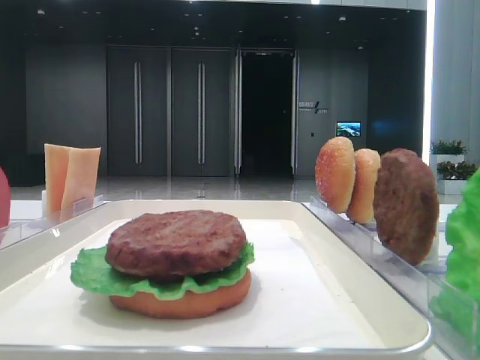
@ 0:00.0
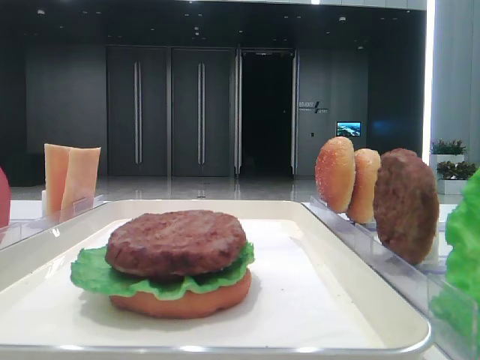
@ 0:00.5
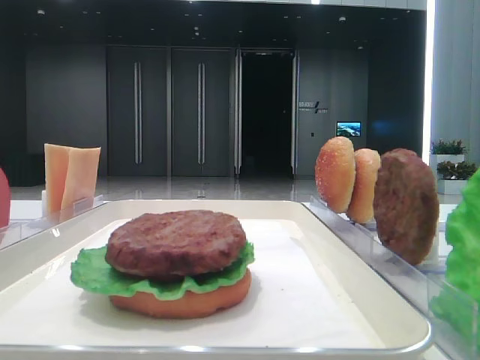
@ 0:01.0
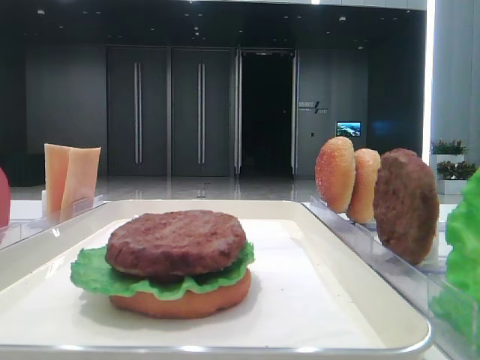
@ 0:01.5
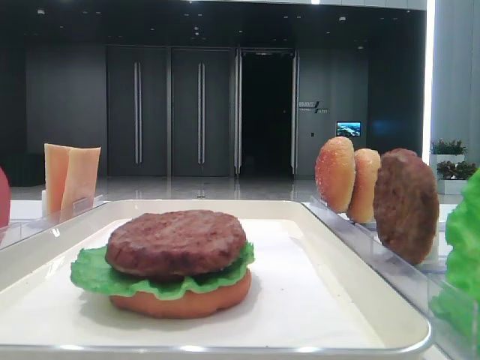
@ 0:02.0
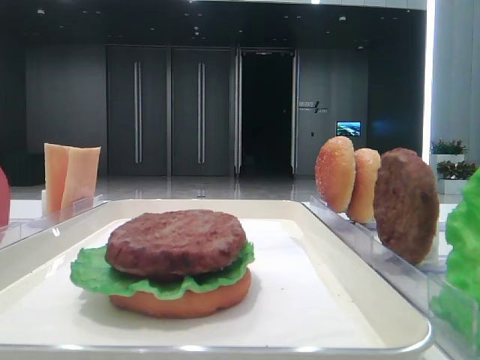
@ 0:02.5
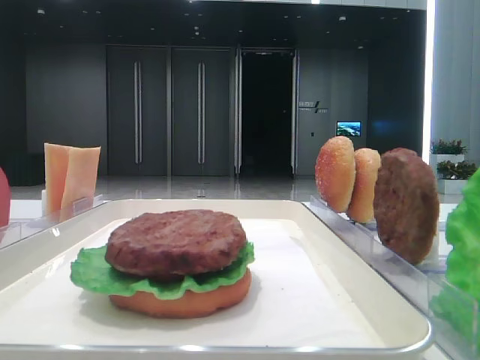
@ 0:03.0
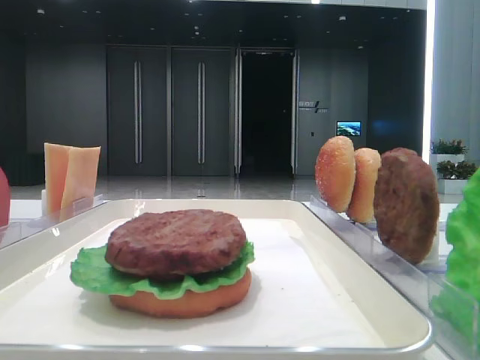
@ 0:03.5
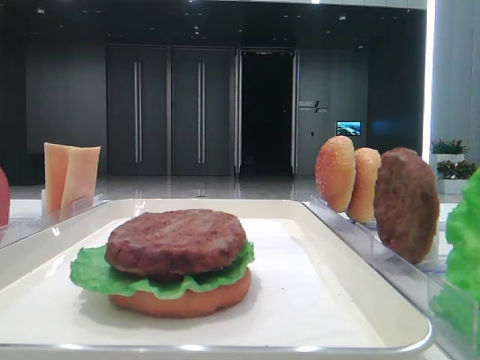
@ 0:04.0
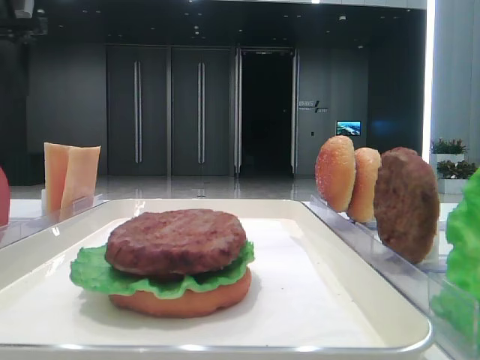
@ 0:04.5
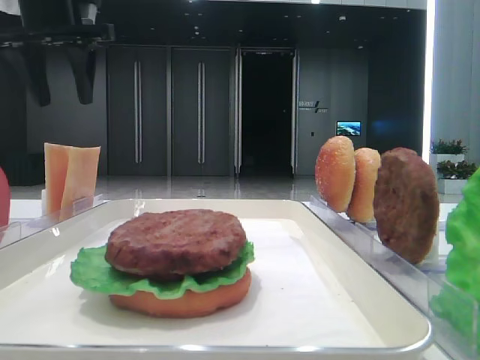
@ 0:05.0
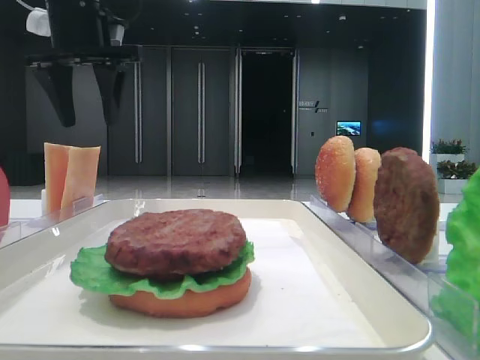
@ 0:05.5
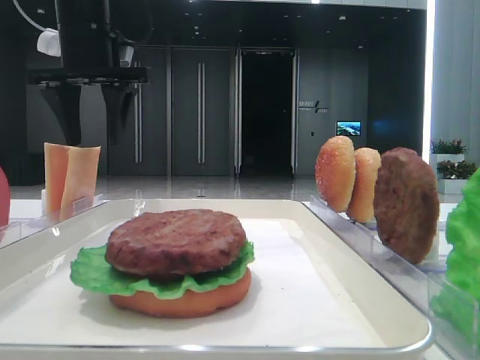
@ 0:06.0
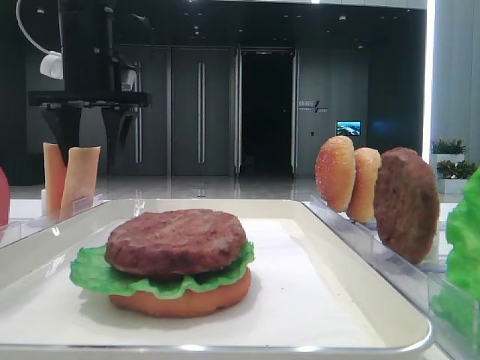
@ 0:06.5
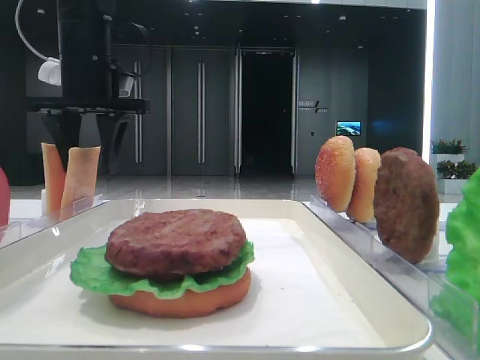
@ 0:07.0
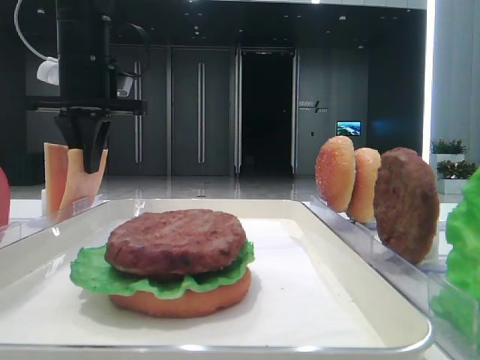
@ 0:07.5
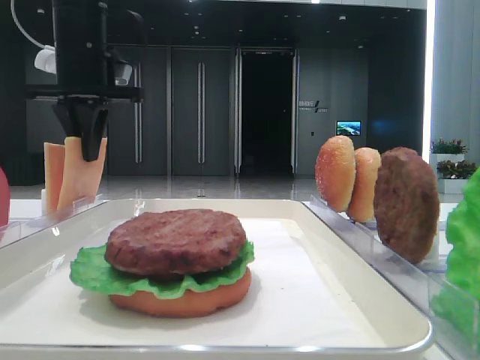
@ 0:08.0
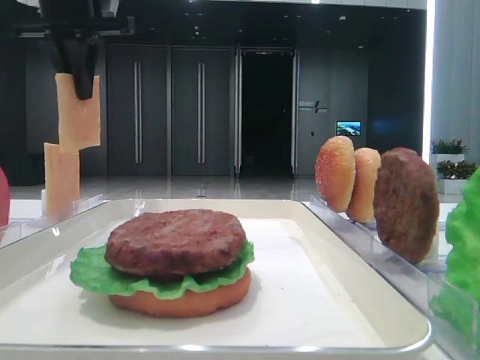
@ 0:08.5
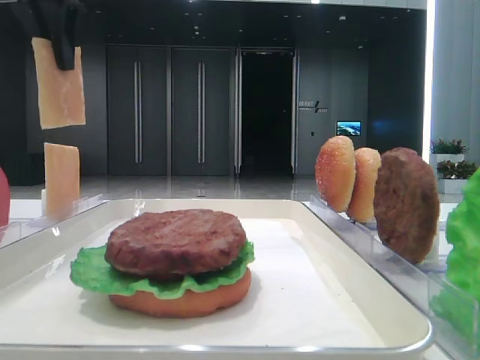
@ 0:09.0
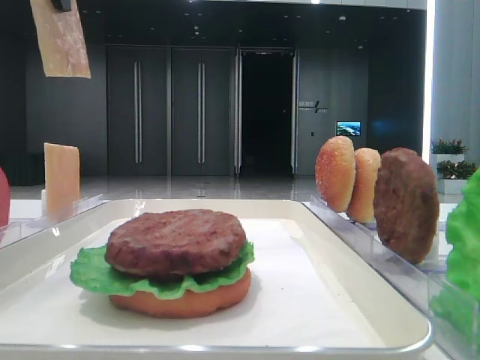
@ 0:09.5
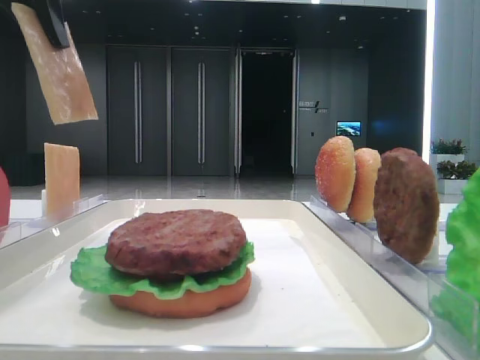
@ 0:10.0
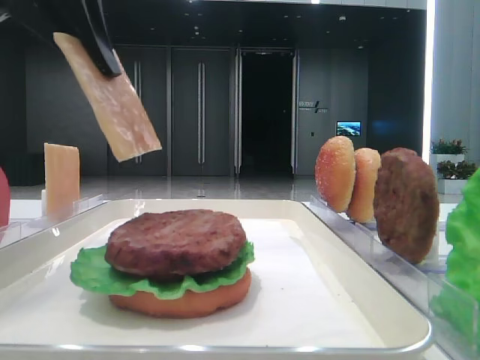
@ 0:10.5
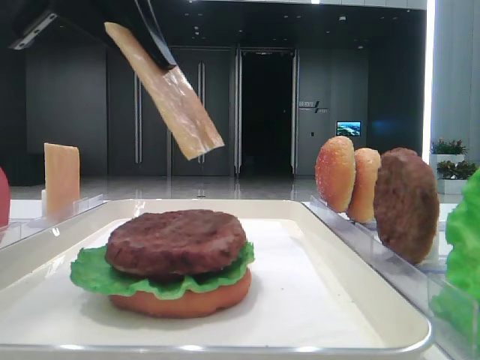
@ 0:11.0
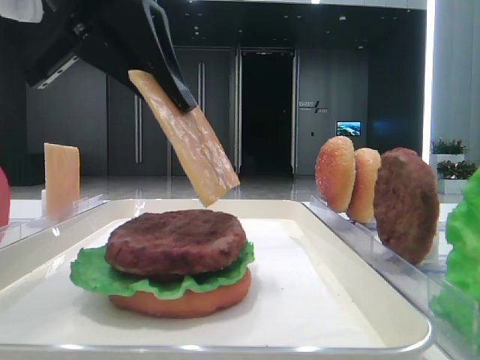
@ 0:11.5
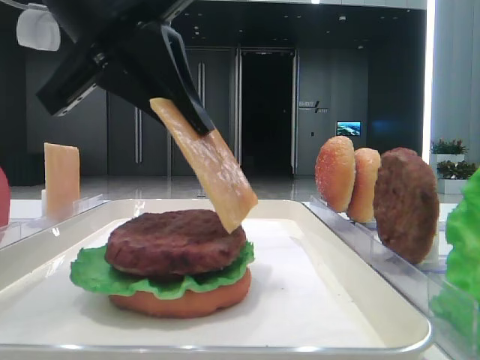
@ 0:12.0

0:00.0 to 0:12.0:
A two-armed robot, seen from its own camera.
Step, 0:00.0 to 0:07.5: Pick up the cheese slice with the left hand.
0:02.0 to 0:04.0: The left gripper travels forward by roughly 35 cm.
0:04.0 to 0:06.0: The left gripper travels to the right and downward by about 20 cm.
0:06.0 to 0:08.0: The left gripper closes its fingers.
0:08.0 to 0:10.0: The left gripper travels backward and upward by roughly 20 cm.
0:10.0 to 0:12.0: The left gripper travels downward and to the right by roughly 15 cm.

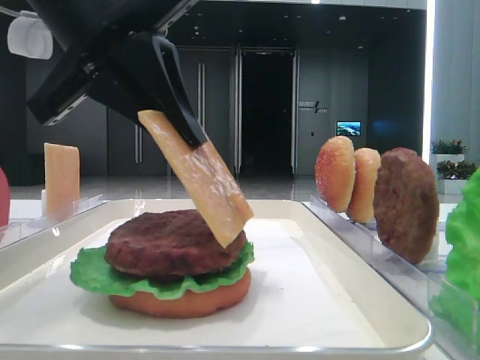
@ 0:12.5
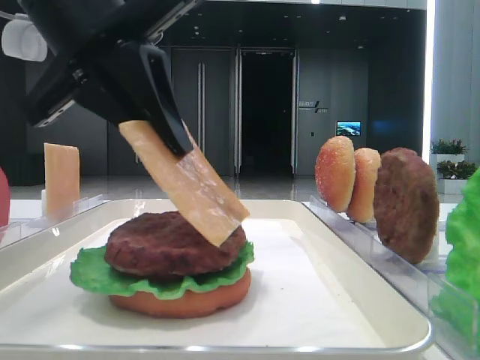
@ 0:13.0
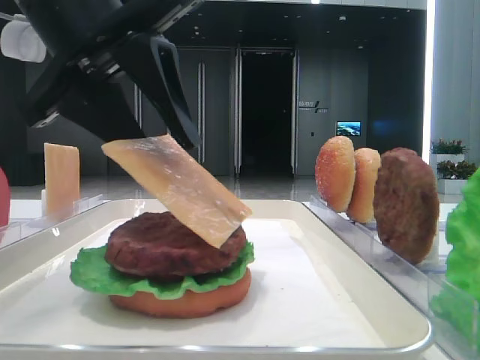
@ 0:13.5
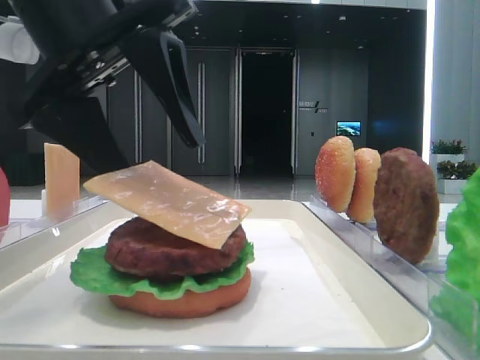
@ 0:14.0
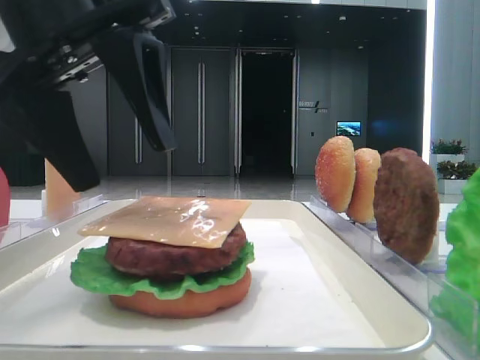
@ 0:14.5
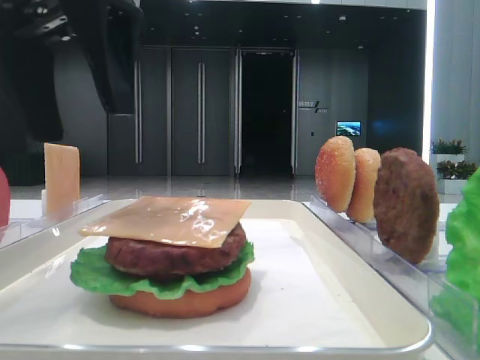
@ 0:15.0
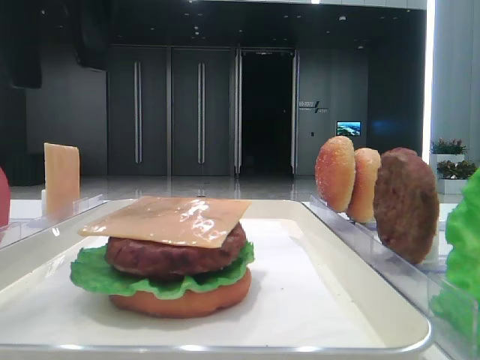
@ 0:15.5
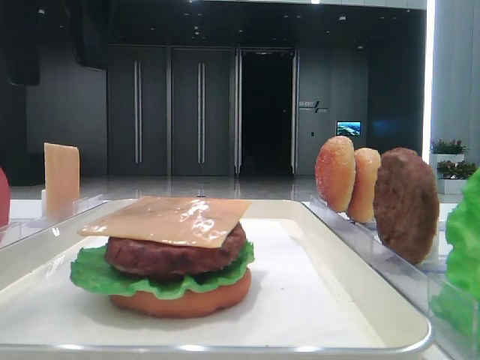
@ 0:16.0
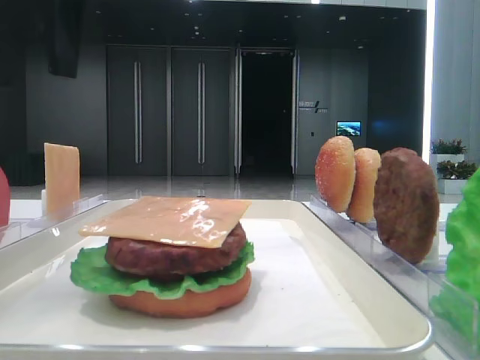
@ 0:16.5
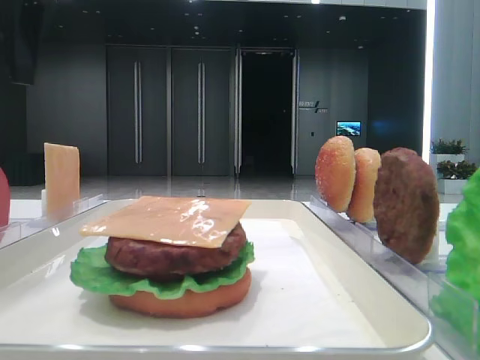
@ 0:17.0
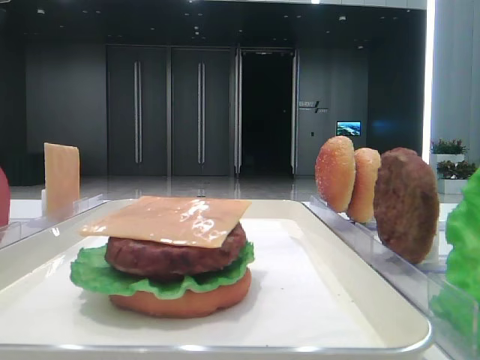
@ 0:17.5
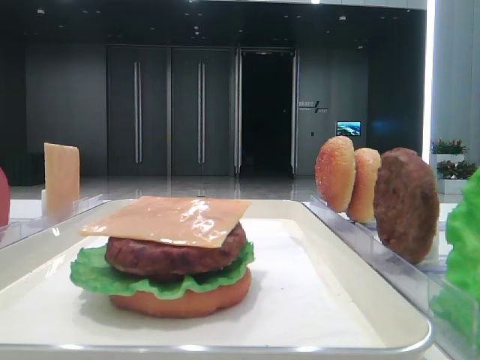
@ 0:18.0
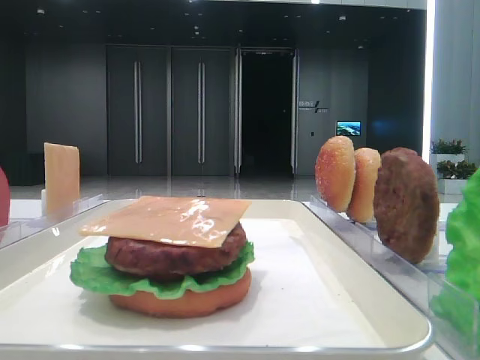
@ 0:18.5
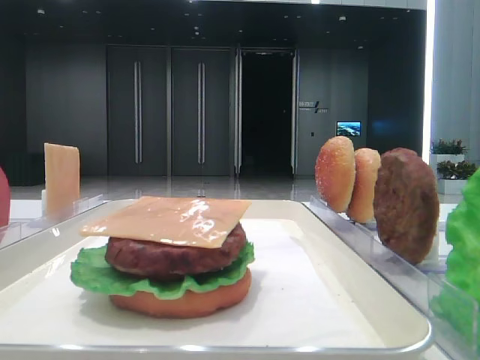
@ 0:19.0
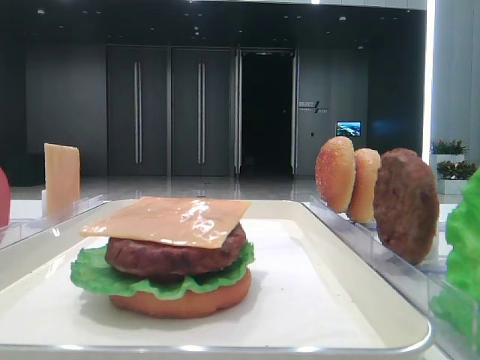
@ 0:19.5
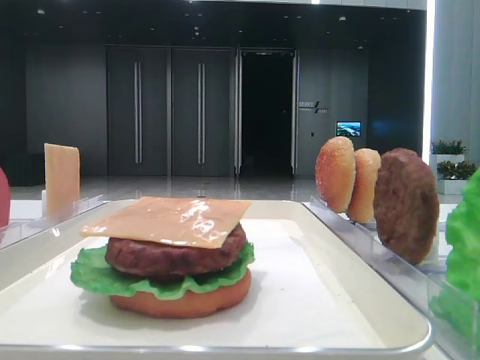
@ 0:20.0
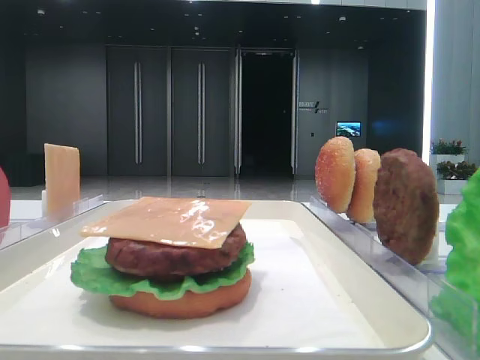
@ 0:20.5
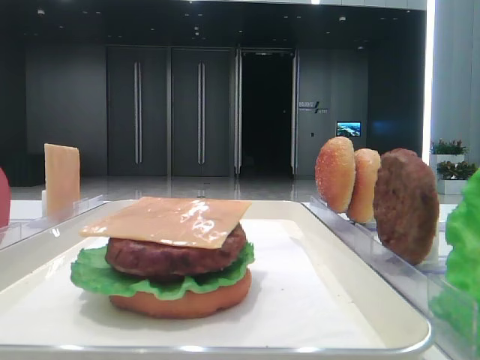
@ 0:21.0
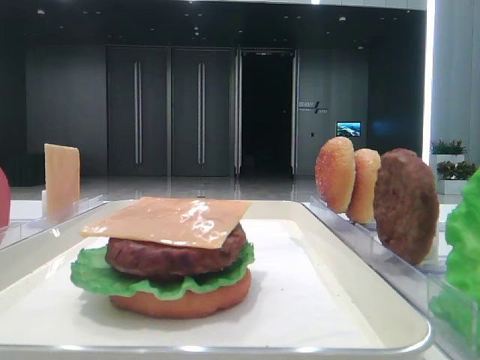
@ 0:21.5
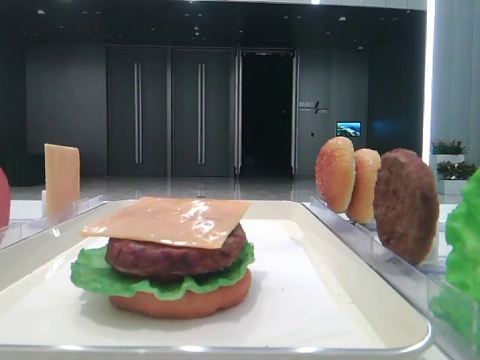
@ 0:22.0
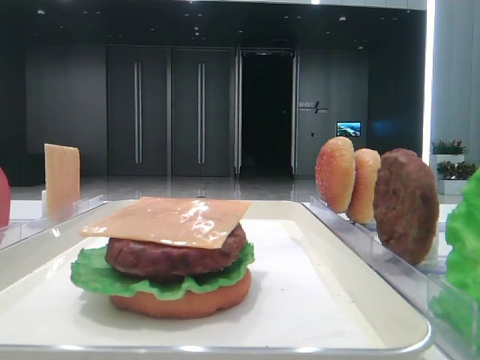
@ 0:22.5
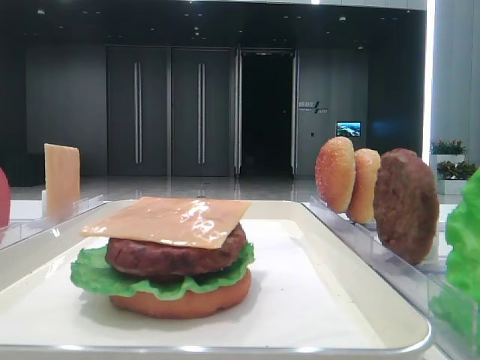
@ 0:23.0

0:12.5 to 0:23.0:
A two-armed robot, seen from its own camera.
0:12.5 to 0:14.5: The left gripper opens.
0:14.5 to 0:16.5: The left gripper shifts roughly 10 cm upward.
0:16.5 to 0:19.0: The left gripper travels to the left and backward by approximately 15 cm.

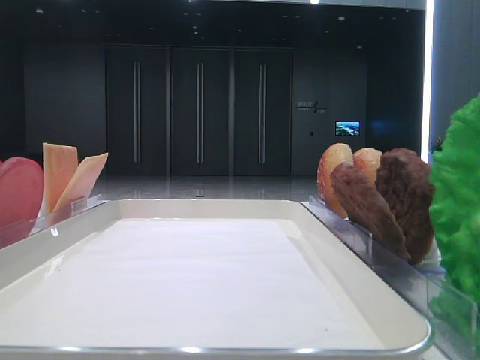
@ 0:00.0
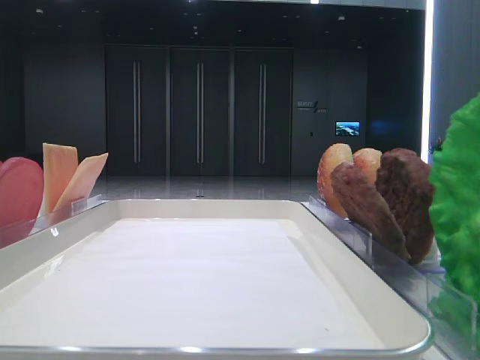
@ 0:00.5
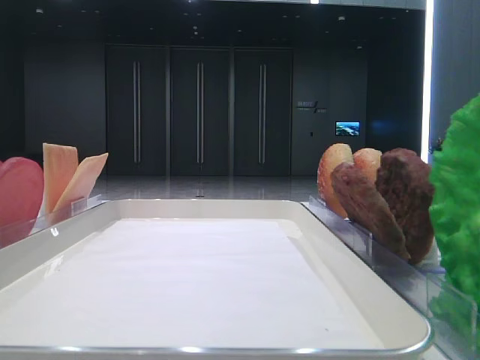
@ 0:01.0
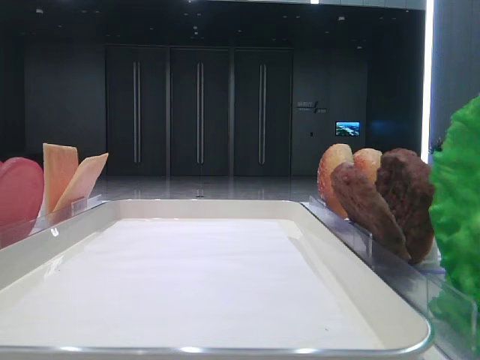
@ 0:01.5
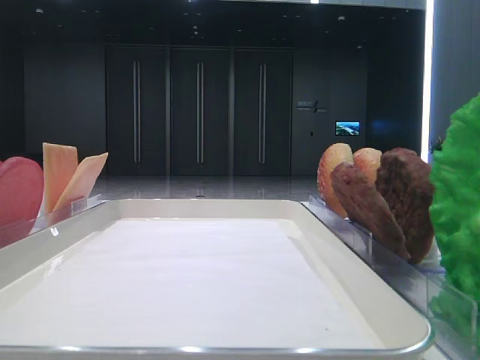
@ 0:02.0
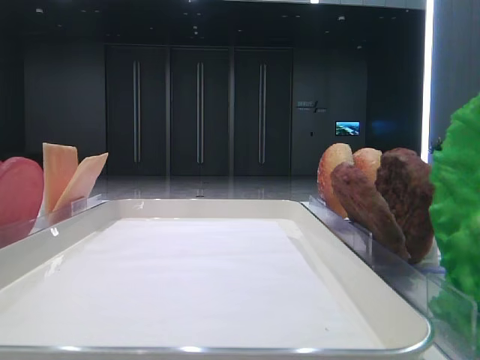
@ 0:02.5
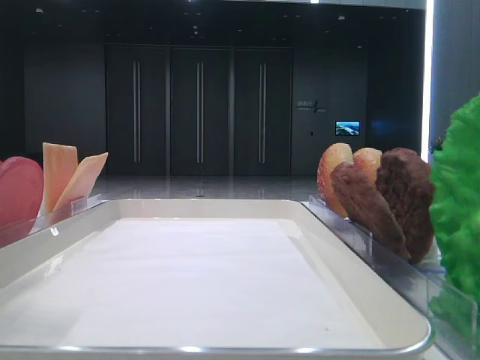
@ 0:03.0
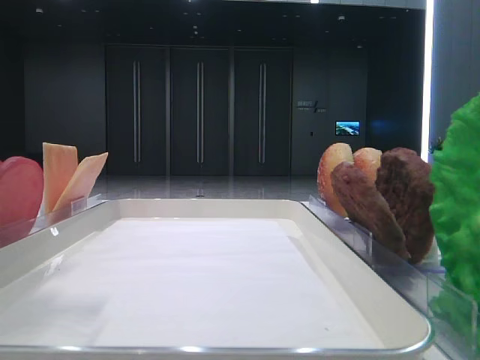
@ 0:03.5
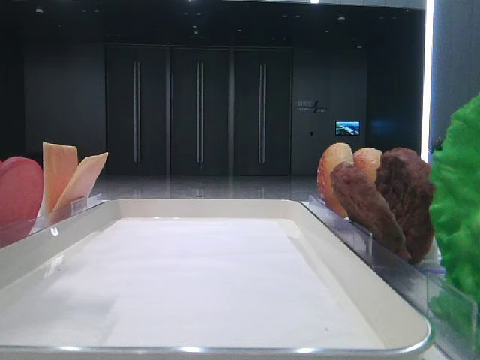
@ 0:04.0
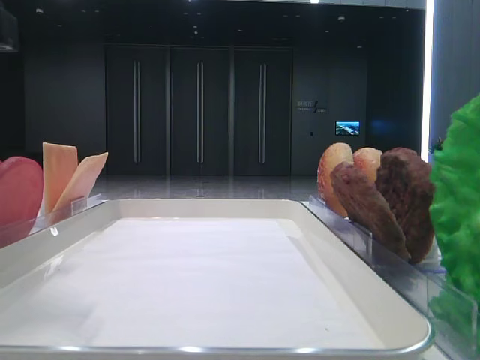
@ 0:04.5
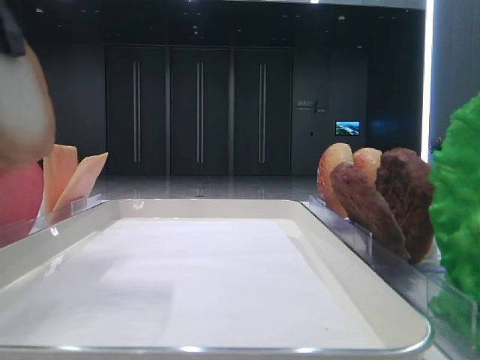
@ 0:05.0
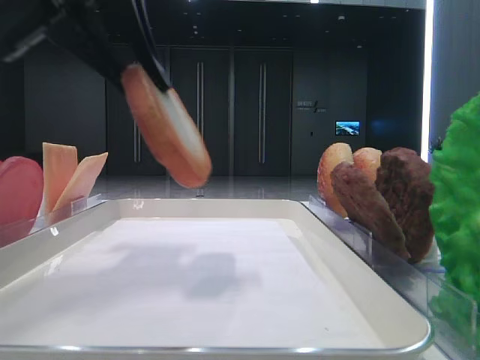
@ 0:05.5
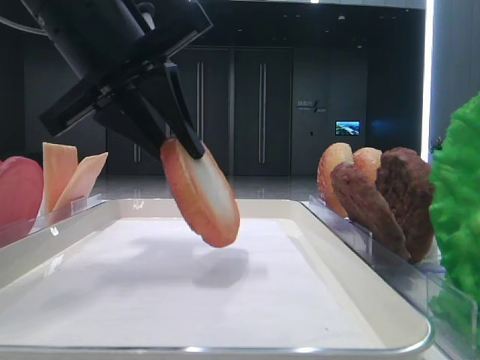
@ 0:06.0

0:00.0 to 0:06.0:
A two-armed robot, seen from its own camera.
Step, 0:00.0 to 0:04.5: Pick up the bottom bread with the left hand.
0:02.0 to 0:04.0: The left gripper travels to the right, forward and downward by some 15 cm.
0:04.0 to 0:06.0: The left gripper heads to the right and forward, covering some 10 cm, and closes up.
